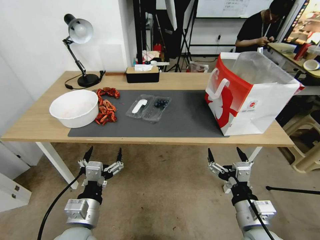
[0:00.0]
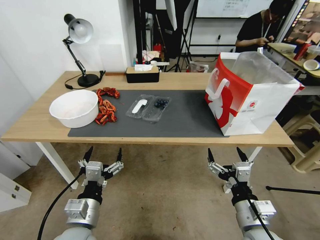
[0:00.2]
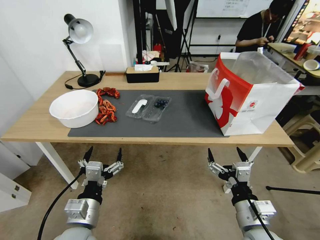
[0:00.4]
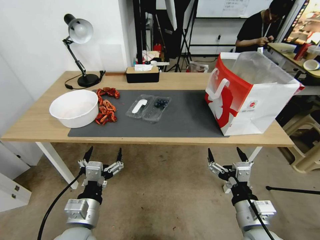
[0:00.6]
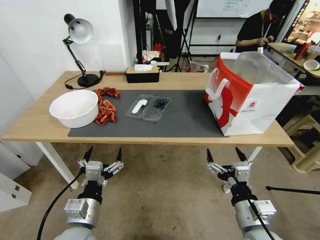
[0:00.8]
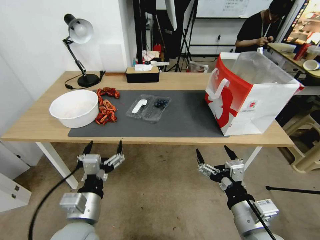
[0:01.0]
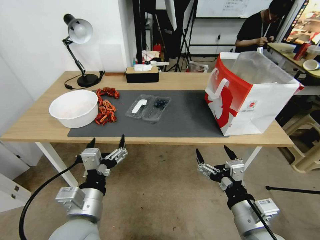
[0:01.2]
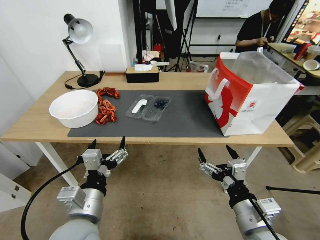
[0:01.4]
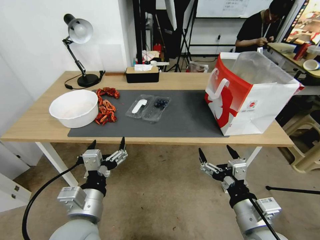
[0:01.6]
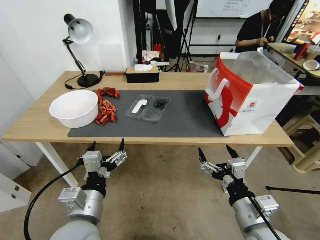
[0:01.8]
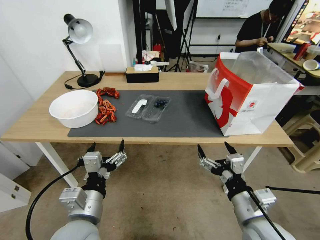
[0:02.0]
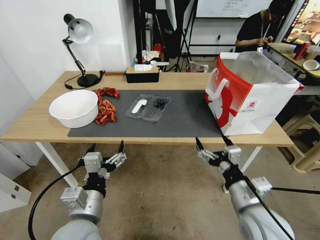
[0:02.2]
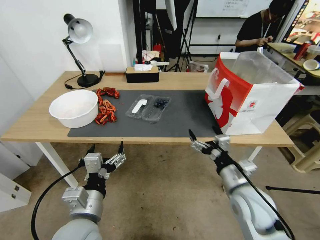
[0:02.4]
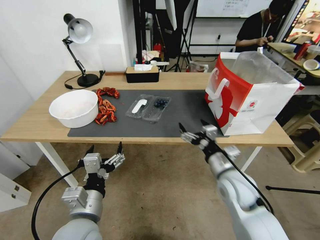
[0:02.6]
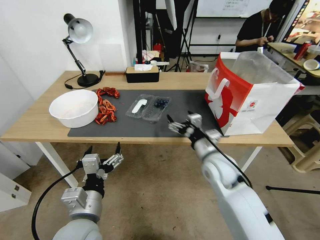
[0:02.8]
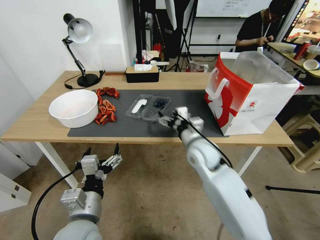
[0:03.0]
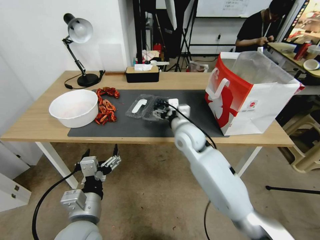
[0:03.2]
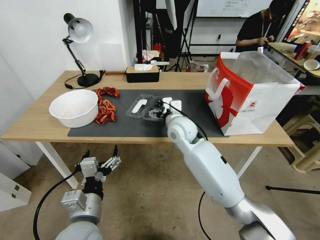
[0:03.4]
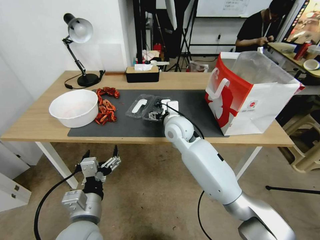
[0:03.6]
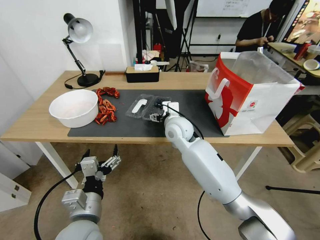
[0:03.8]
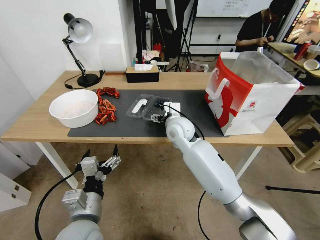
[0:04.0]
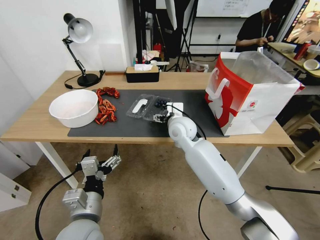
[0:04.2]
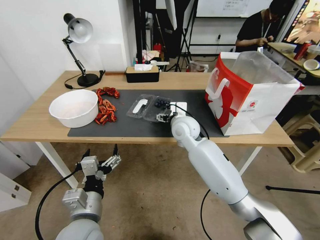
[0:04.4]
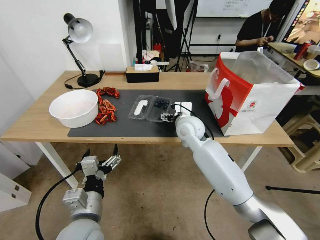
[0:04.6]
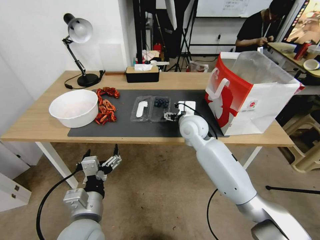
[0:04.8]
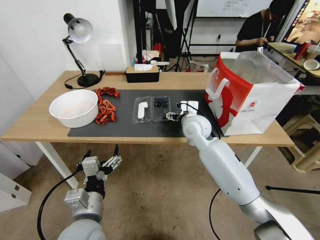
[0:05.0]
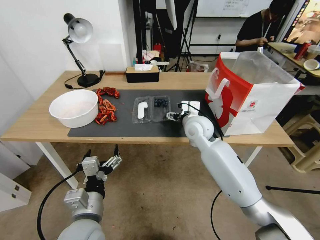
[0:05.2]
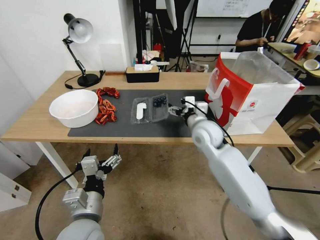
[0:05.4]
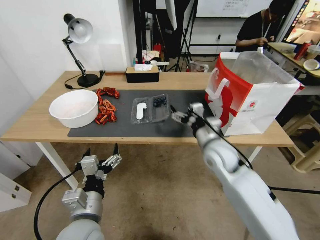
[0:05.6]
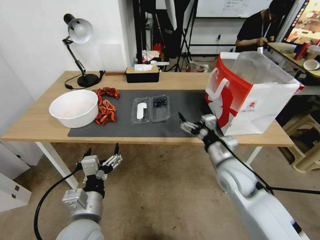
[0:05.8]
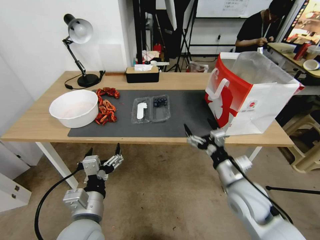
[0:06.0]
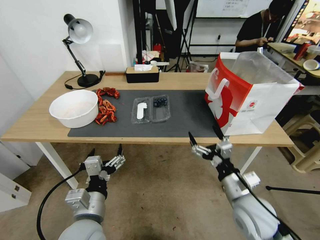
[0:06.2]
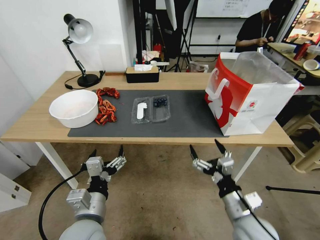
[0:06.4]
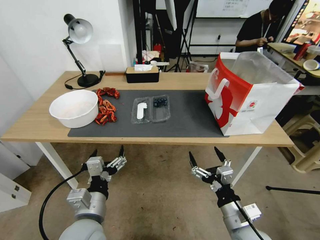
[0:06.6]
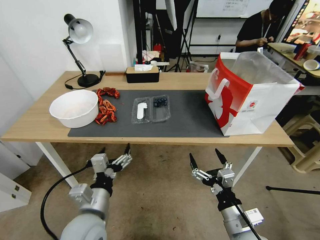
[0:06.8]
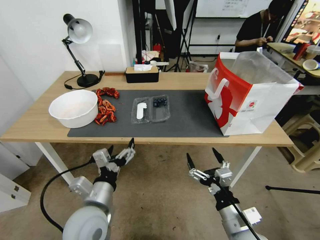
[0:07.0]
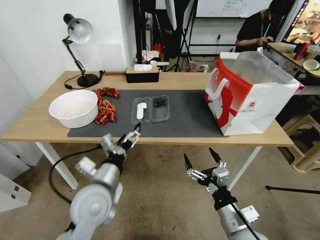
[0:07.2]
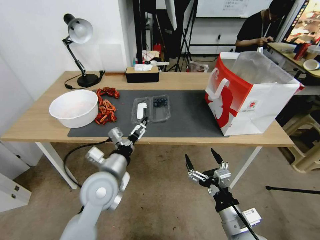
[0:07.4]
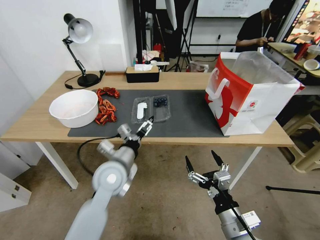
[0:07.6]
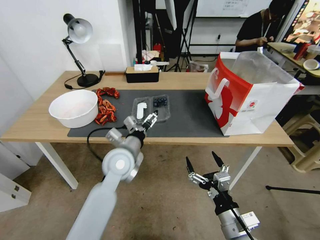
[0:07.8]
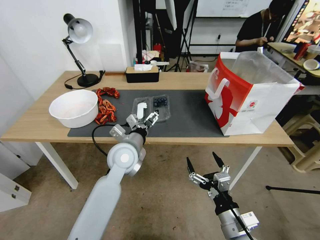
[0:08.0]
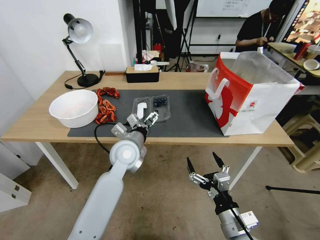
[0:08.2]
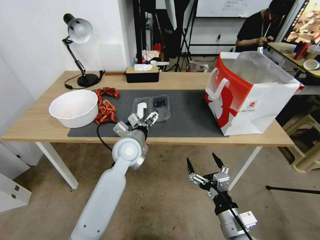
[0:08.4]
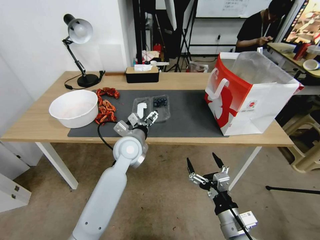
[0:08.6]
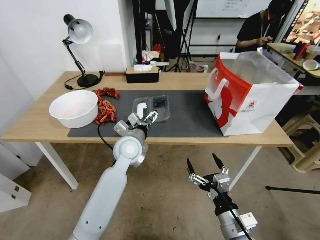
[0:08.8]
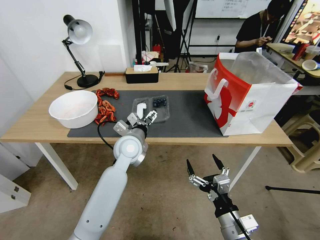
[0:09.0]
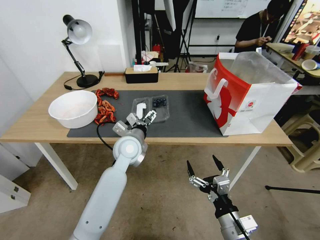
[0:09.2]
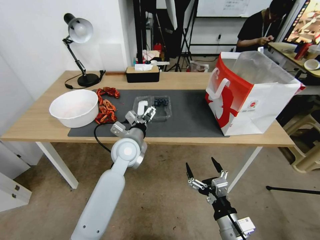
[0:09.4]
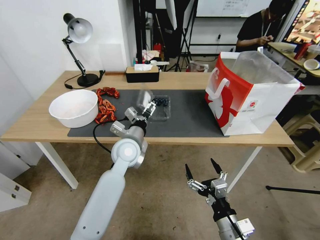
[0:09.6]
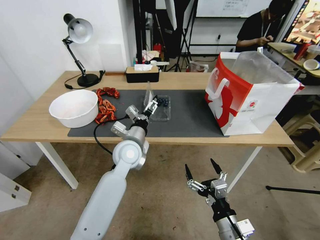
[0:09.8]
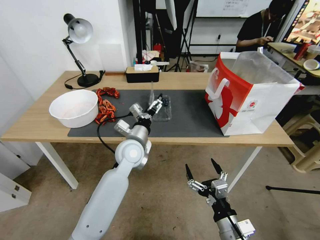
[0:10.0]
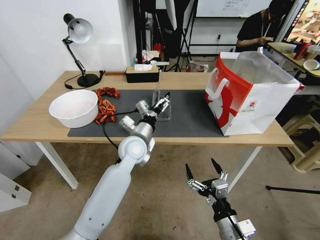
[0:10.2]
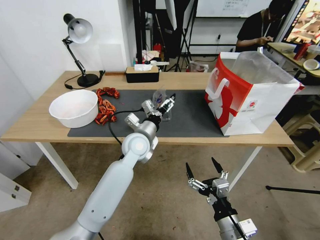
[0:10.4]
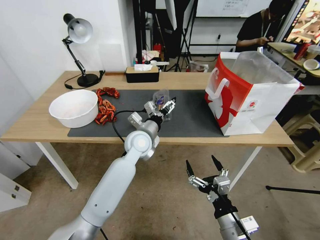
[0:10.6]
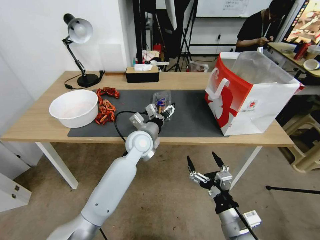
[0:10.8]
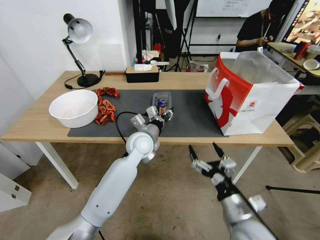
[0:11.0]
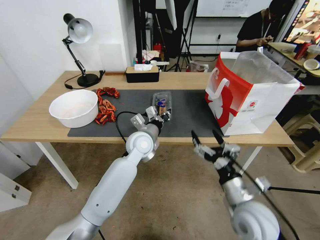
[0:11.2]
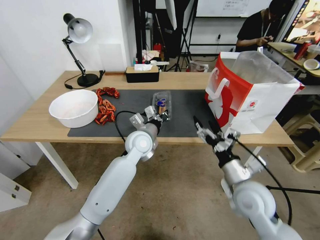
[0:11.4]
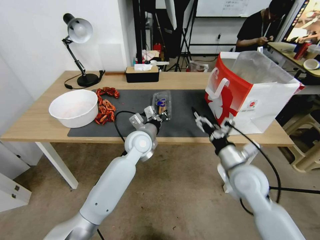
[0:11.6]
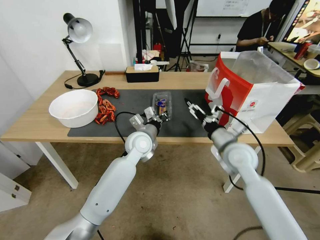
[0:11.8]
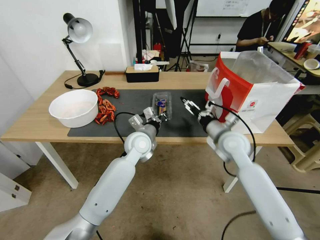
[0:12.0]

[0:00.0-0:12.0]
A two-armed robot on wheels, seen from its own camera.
Task of the whole recording: Close the takeout container lid, then place the container into the takeout bag.
0:01.6 to 0:03.0: The right gripper shifts roughly 25 cm forward.
0:03.0 to 0:04.4: The right gripper travels forward by about 10 cm.
0:04.4 to 0:06.0: The right gripper travels backward and to the right by roughly 25 cm.
0:06.0 to 0:07.6: The left gripper heads forward, covering approximately 15 cm. Meanwhile the right gripper heads backward, covering roughly 10 cm.
0:07.6 to 0:09.0: The left gripper shifts approximately 10 cm forward.
0:10.4 to 0:12.0: The right gripper moves forward, some 30 cm, while the left gripper closes its fingers.

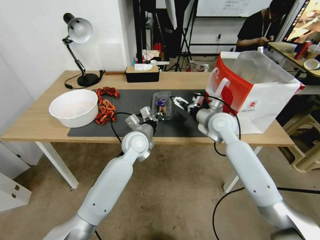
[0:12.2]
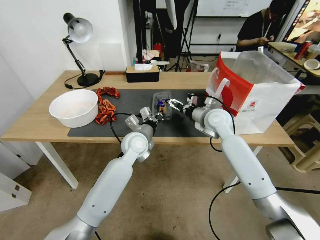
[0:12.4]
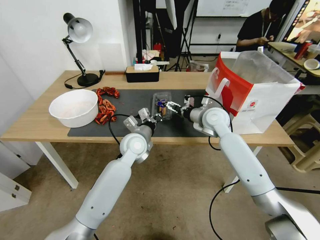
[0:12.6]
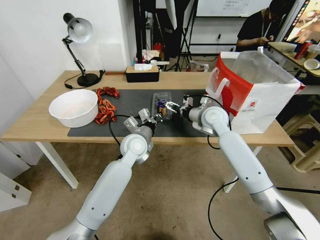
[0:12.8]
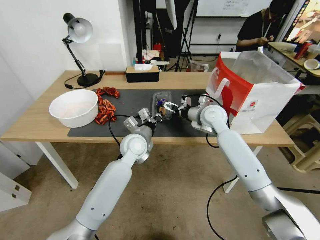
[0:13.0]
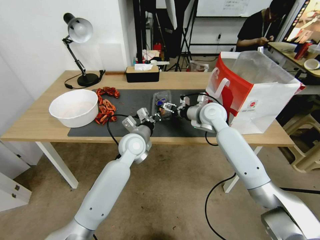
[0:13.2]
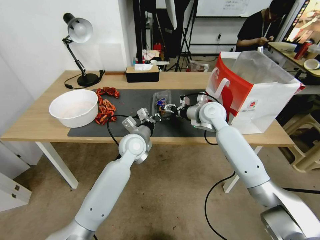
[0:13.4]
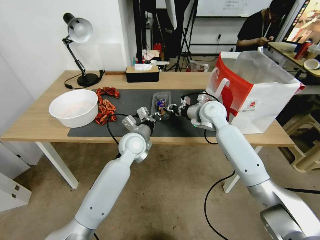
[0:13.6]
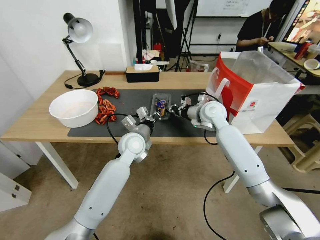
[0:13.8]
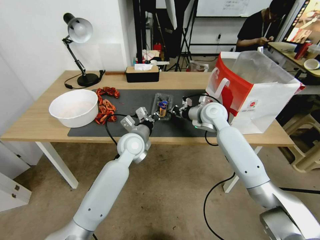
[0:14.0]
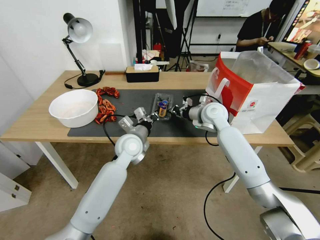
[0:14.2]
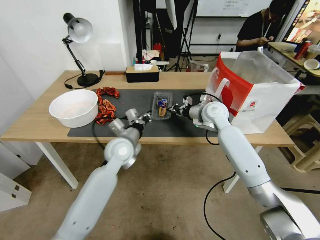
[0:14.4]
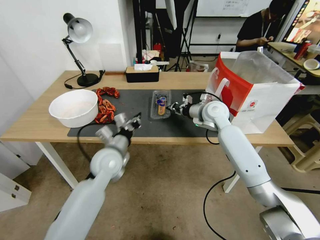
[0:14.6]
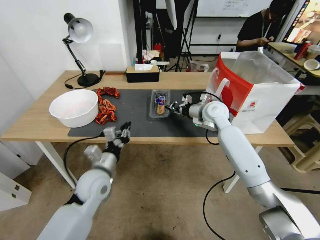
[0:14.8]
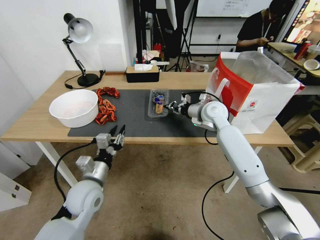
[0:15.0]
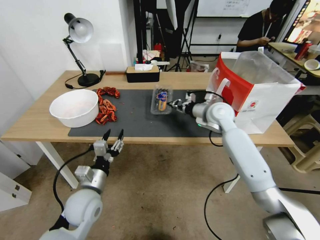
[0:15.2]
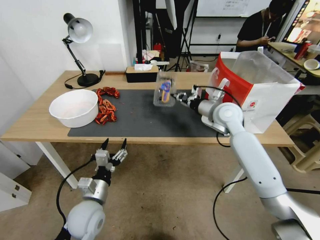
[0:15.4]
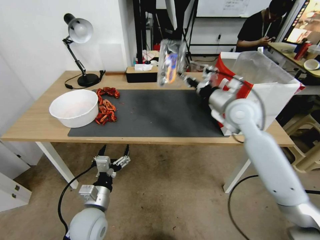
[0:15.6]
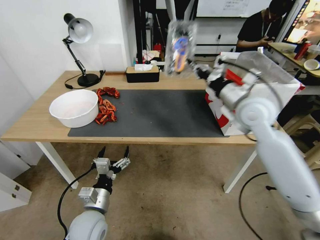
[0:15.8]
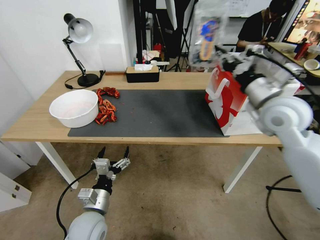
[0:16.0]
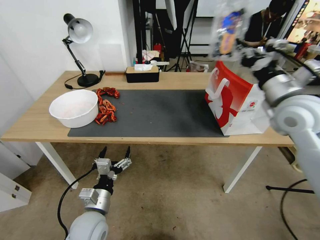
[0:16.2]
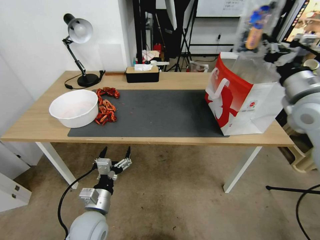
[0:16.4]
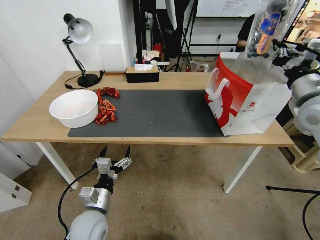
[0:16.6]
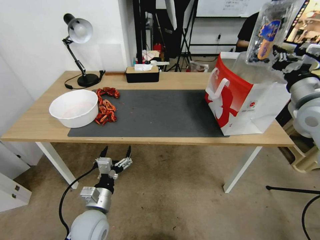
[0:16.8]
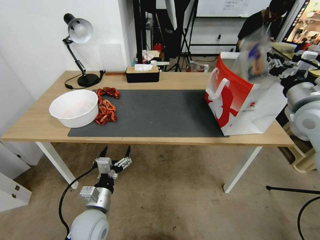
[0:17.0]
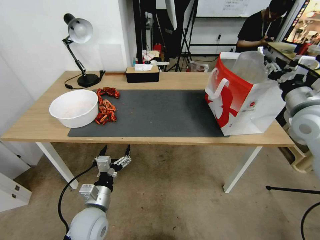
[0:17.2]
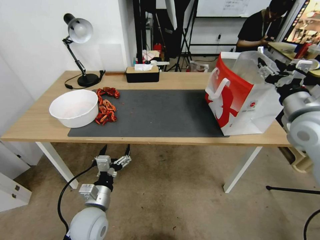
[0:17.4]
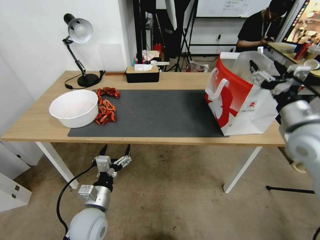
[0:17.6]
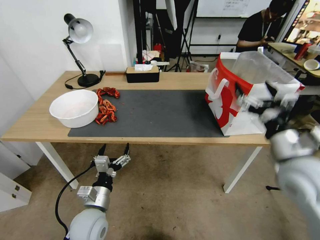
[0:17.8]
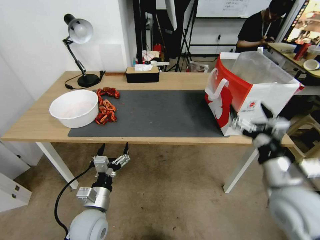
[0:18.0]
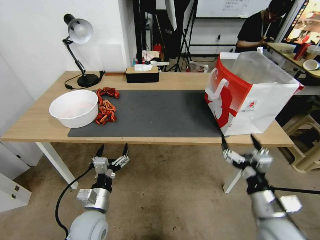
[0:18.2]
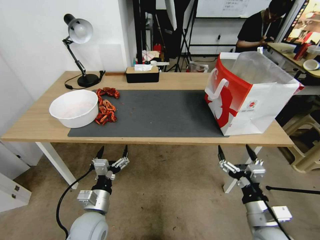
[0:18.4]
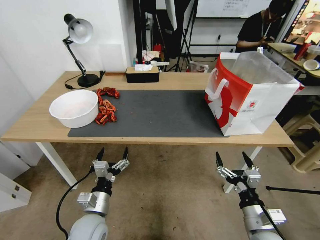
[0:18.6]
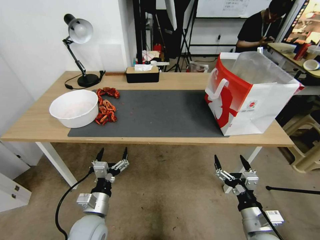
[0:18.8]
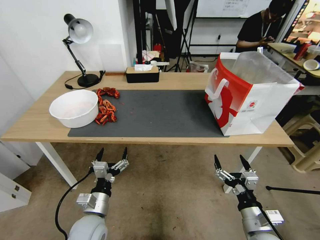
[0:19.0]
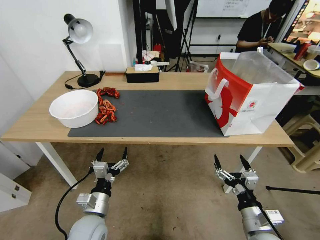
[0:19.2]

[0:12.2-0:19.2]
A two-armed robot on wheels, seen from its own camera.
Task of the whole recording: Close the takeout container lid, then place the container into the takeout bag.
0:12.2 to 0:13.6: The right gripper changes place by some 5 cm, and closes up.
0:13.6 to 0:15.0: The left gripper travels backward and to the left by approximately 20 cm.
0:15.0 to 0:16.4: The right gripper shifts some 25 cm to the right, upward and backward; the left gripper shifts about 10 cm backward and downward, and opens up.
0:16.4 to 0:17.8: The right gripper travels backward and downward by roughly 15 cm, and opens.
0:17.8 to 0:19.2: The right gripper is displaced downward and backward by roughly 25 cm.

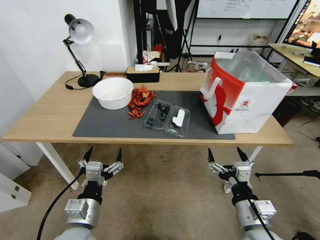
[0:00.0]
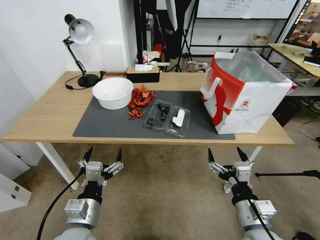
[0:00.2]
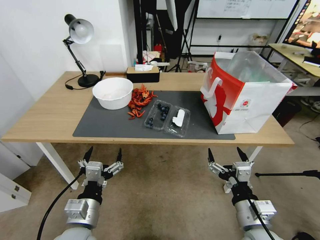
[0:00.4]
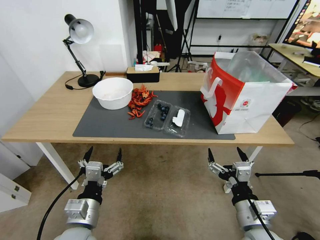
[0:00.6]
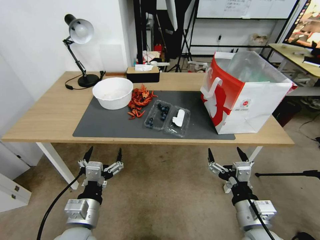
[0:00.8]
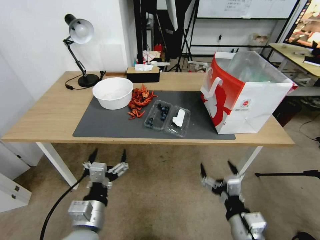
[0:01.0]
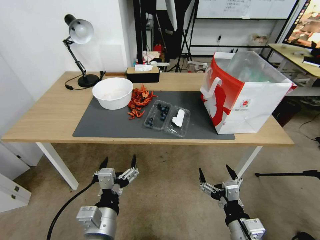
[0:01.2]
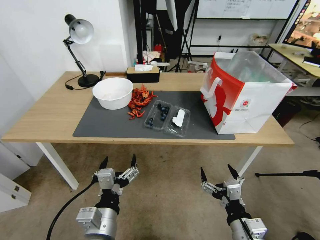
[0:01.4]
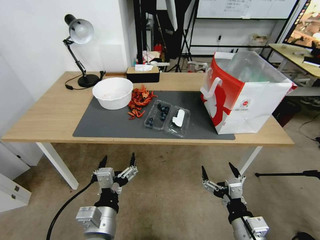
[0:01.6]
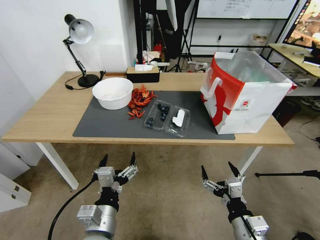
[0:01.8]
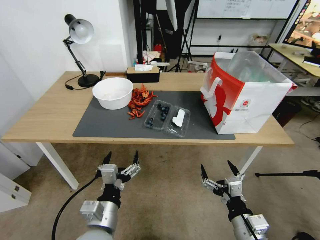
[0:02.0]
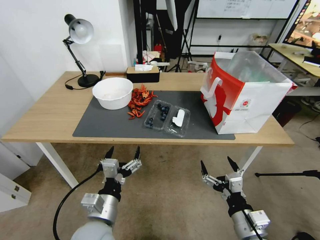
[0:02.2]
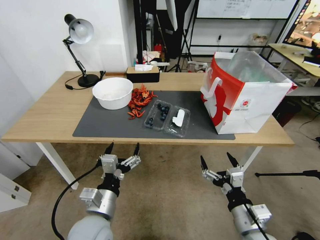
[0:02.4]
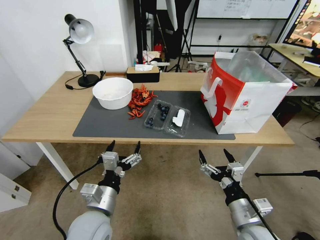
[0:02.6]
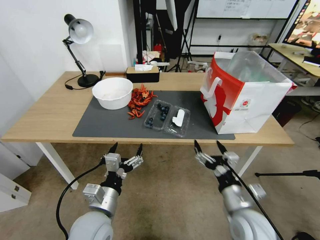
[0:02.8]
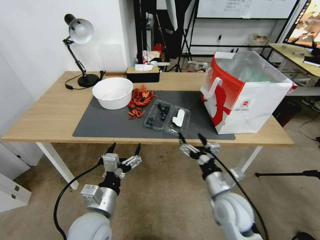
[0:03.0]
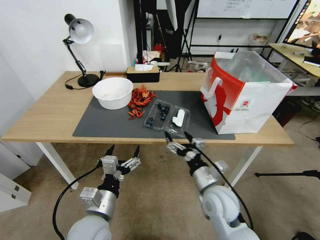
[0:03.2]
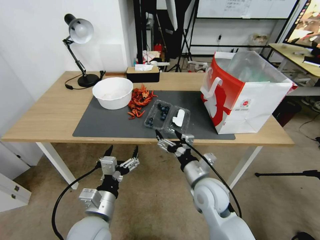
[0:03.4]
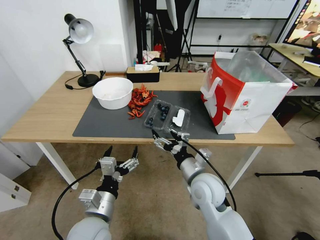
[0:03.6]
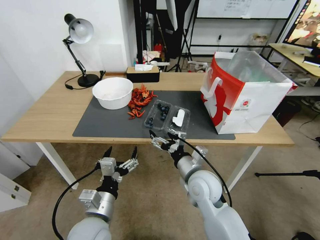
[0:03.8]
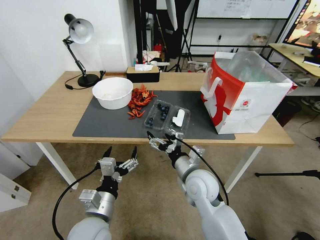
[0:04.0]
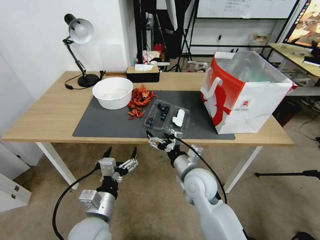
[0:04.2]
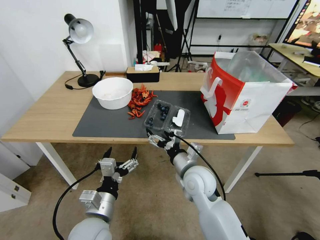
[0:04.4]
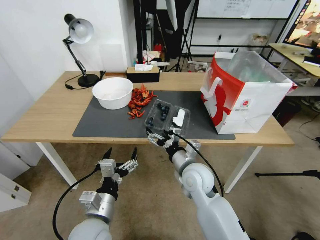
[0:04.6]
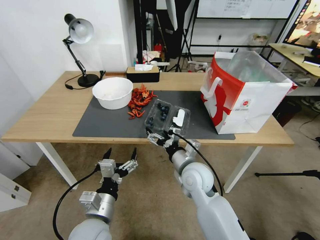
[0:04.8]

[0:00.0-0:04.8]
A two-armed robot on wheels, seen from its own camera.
Task of the whole recording: Close the takeout container lid, then place the container into the takeout bag.
0:01.6 to 0:03.2: The right gripper moves forward and to the left, some 15 cm, while the left gripper changes place by about 5 cm.
0:03.2 to 0:04.8: The right gripper moves forward and to the left, approximately 10 cm.
